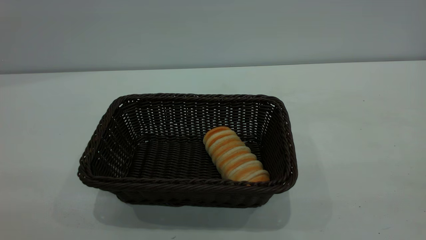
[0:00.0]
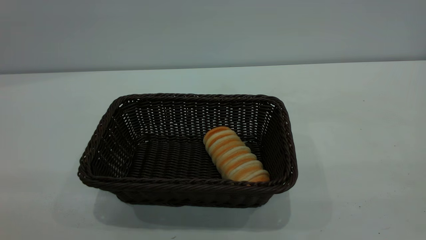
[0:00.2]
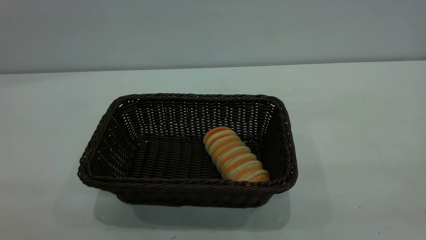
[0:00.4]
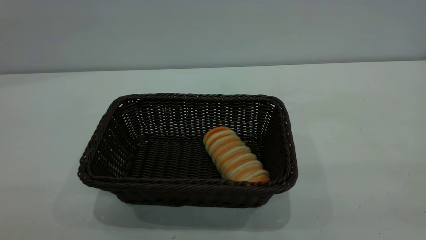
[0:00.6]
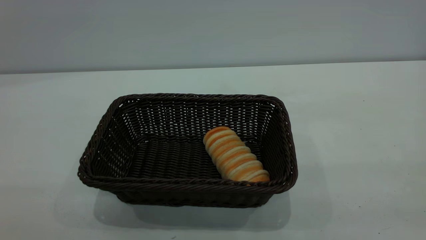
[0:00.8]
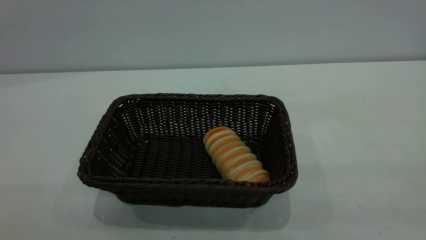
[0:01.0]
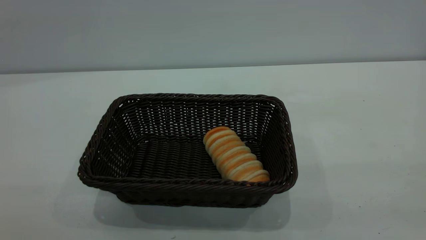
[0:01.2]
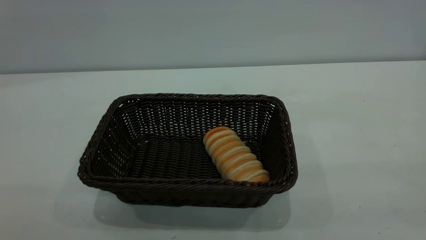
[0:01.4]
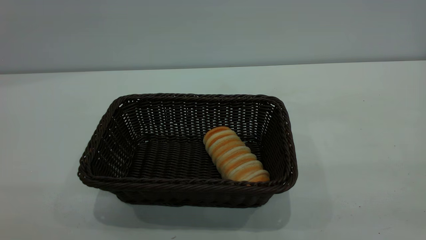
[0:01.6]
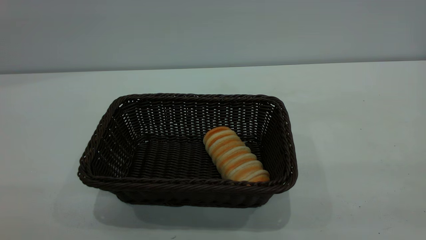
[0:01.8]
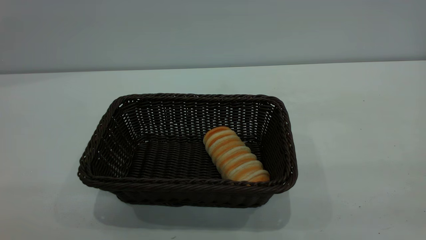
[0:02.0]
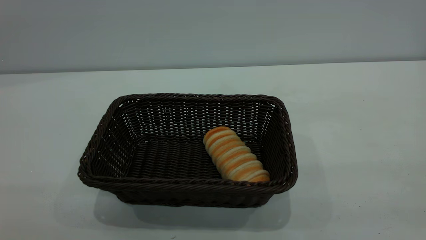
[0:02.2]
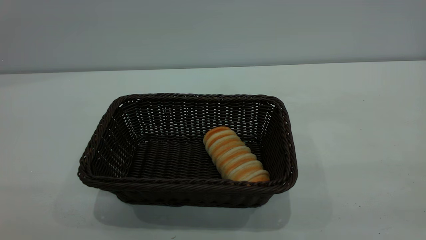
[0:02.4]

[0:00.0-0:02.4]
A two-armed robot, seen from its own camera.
Task of the whole recording: One hand grasps the black basket and places it in the middle of the table, while the other hand picks up the long bread and puts it into the black basket.
0:01.2 to 0:02.4: Both grippers stay put.

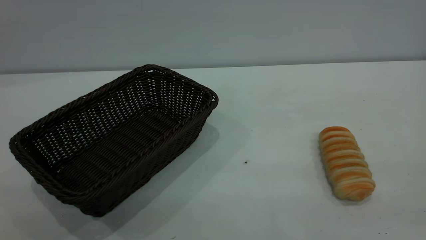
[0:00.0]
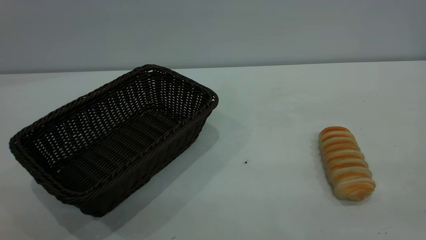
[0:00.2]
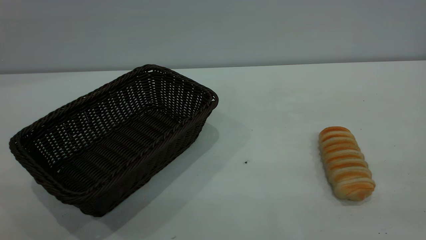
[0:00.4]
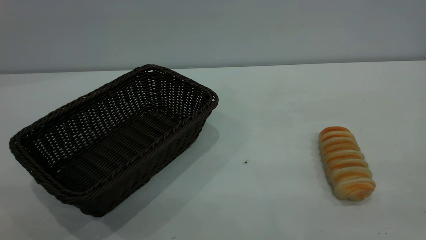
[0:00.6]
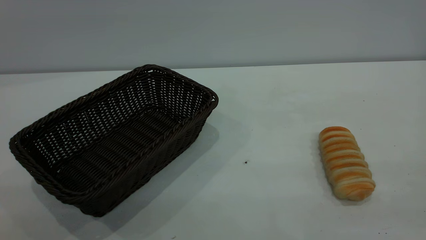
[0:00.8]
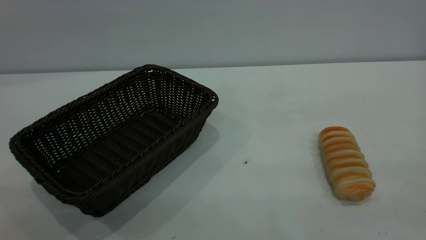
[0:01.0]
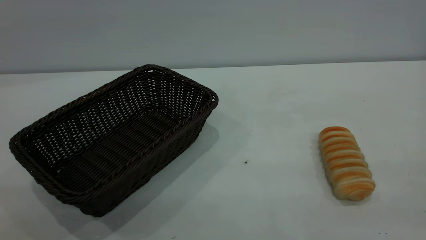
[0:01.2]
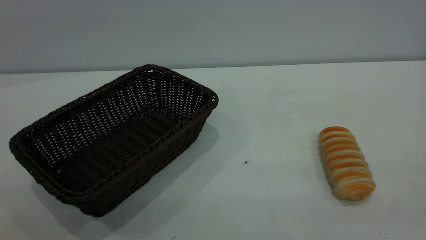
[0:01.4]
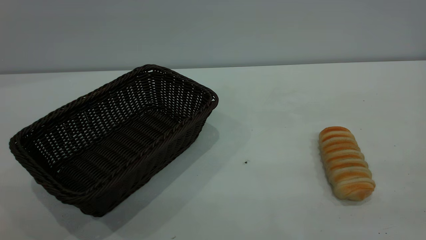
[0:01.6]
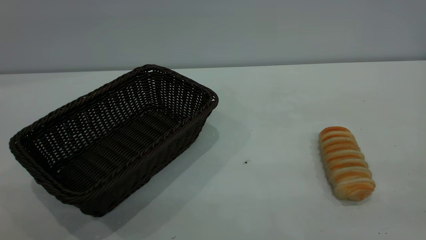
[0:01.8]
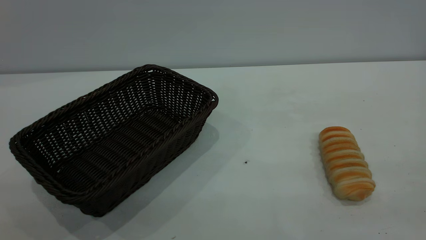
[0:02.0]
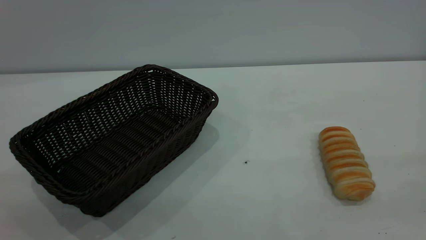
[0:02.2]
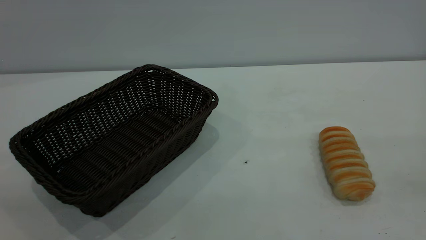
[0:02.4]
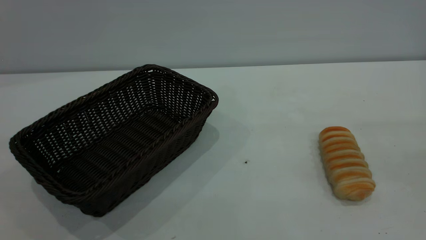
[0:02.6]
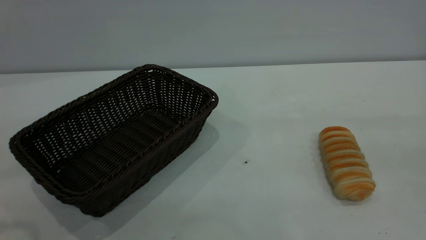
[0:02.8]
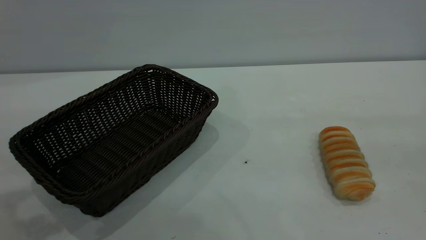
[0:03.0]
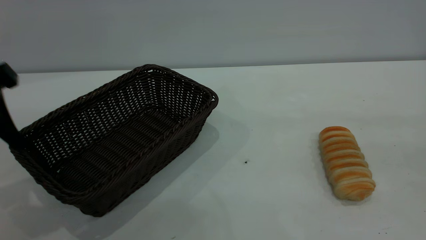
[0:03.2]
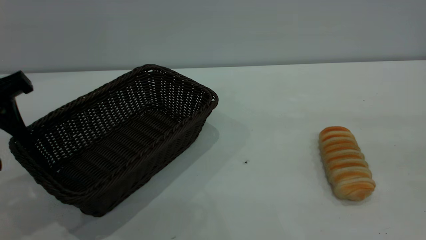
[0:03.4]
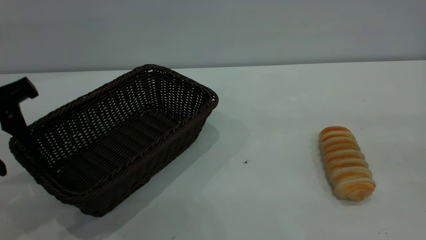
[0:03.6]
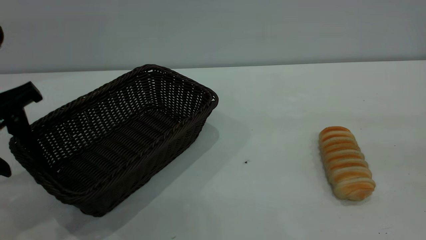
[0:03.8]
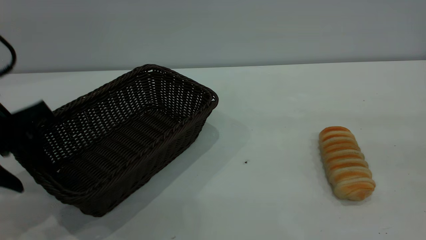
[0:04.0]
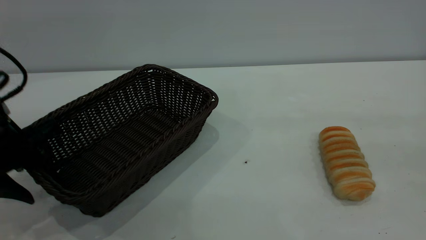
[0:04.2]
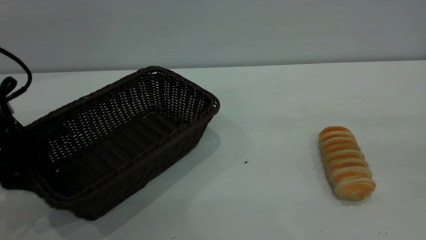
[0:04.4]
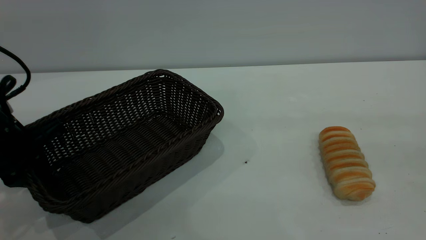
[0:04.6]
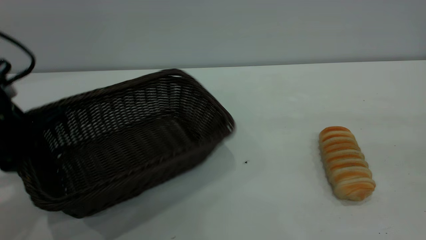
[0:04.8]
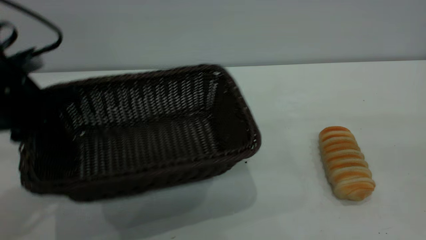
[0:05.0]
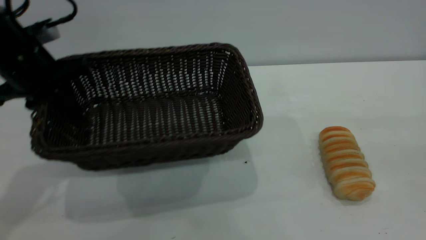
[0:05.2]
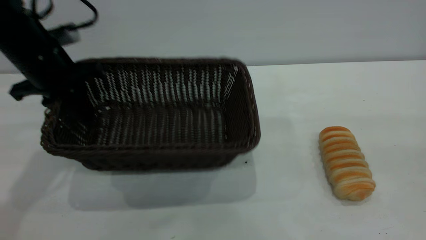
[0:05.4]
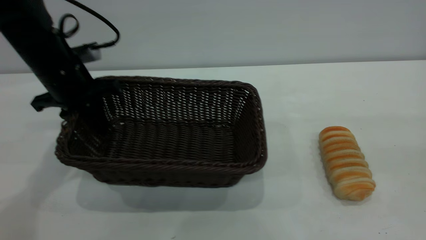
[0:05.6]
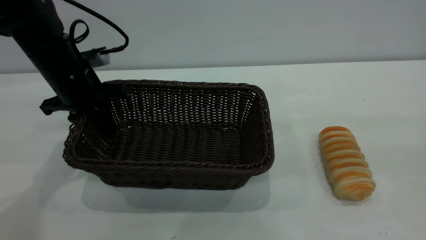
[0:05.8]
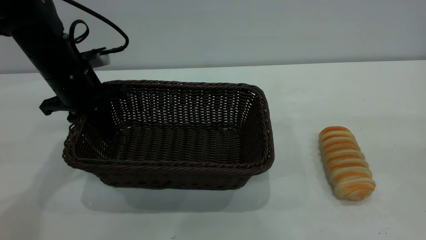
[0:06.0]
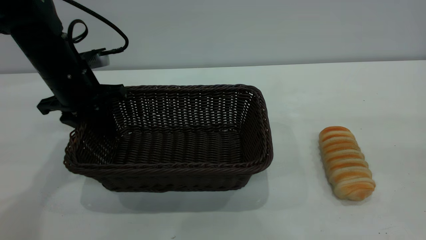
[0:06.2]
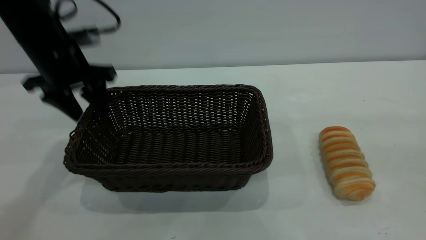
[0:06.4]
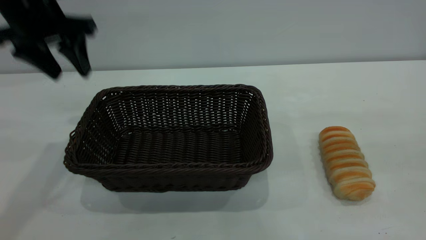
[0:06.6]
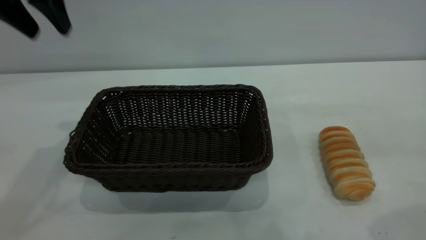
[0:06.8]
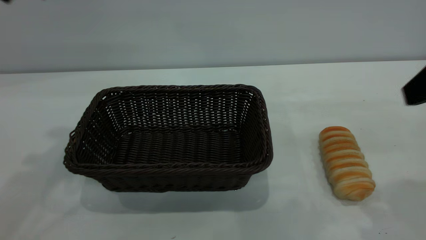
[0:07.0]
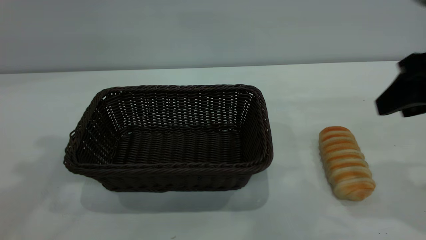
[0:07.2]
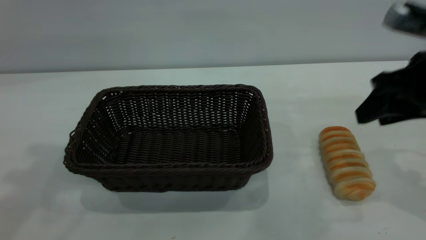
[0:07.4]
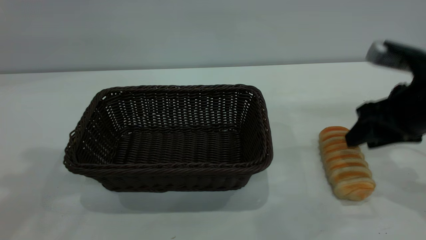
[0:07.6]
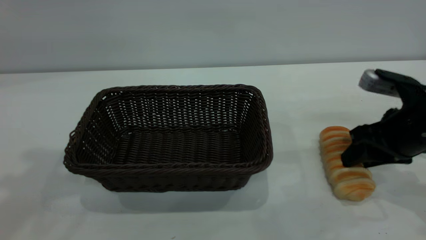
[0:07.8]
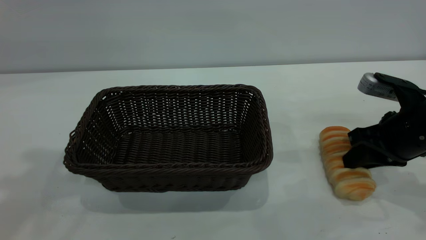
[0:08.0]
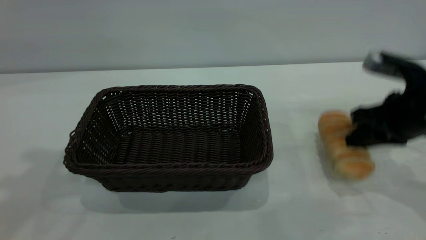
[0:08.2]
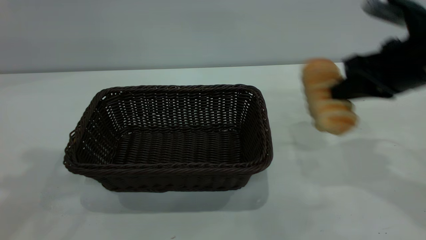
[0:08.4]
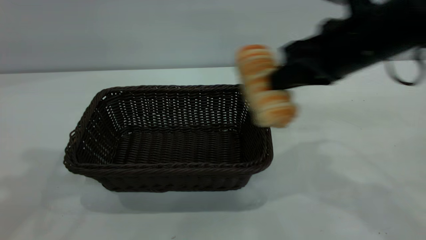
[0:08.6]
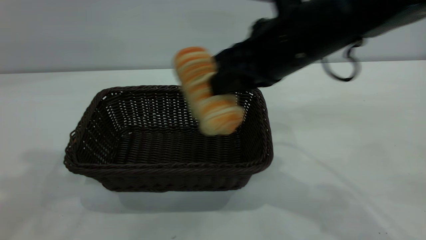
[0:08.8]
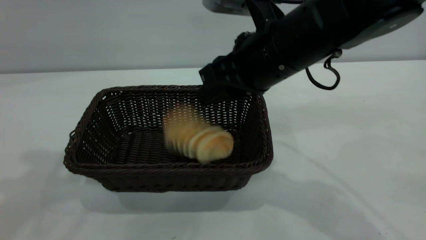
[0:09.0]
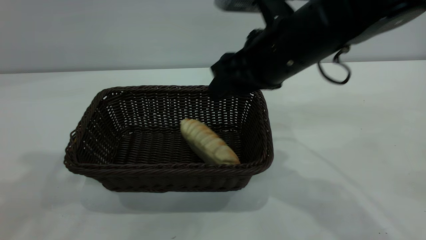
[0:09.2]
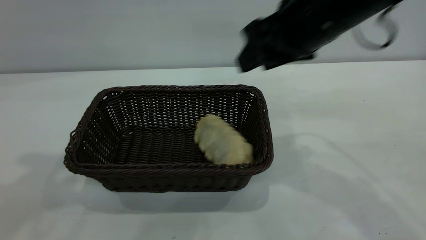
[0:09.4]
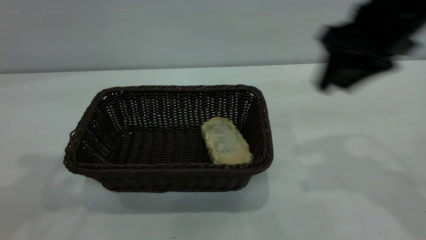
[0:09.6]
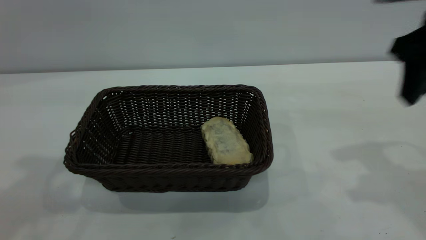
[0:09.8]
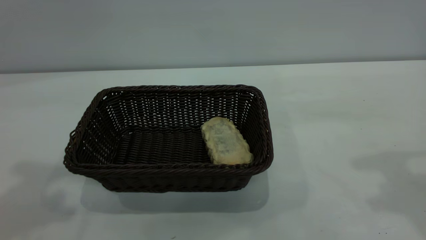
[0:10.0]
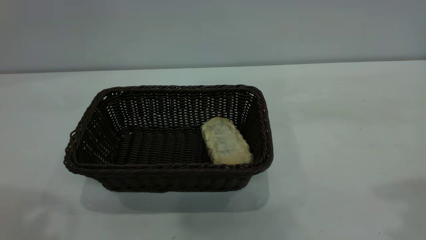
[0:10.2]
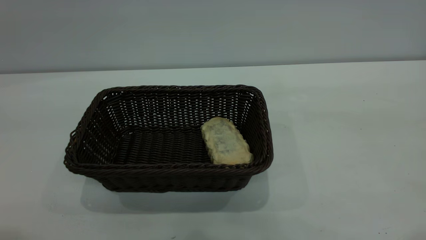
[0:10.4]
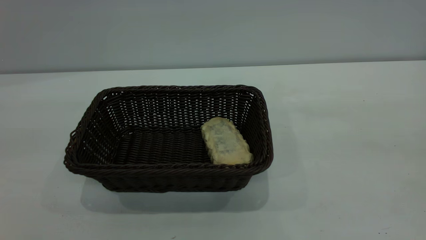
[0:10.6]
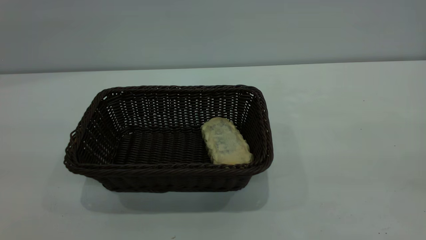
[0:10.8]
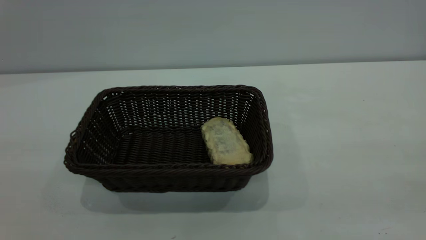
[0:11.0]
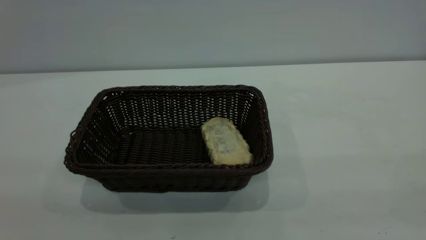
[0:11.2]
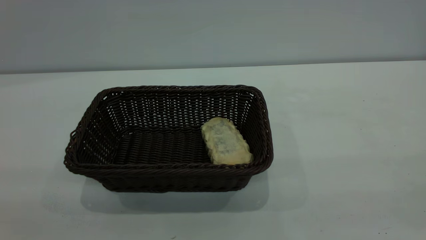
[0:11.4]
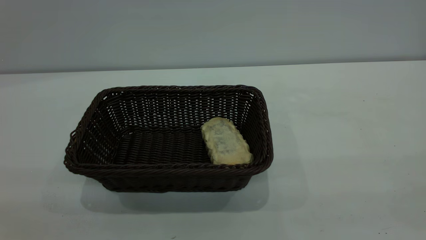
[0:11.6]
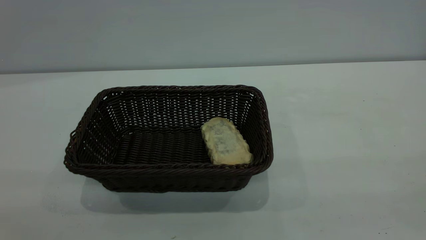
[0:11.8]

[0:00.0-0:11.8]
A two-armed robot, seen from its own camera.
Task of the whole recording: One hand grasps the black basket and places it in the middle of the table, while the other hand picks up the long bread and puts it into the black basket.
Step, 0:00.0 to 0:06.6: Move the basket to the center of view.
Step, 0:08.4 to 0:09.4: place the bread into the basket.
0:00.0 to 0:01.4: The two grippers keep their place.
0:03.0 to 0:04.4: The left gripper travels downward and forward by approximately 15 cm, and closes.
0:04.4 to 0:06.0: The left gripper travels forward and to the right by roughly 15 cm.
0:06.0 to 0:07.4: The left gripper moves upward, about 30 cm, and opens; the right gripper travels forward and downward by approximately 25 cm.
0:07.4 to 0:08.8: The right gripper goes approximately 20 cm to the left, and closes up.
0:08.8 to 0:10.4: The left gripper goes roughly 15 cm backward. The right gripper is displaced upward, to the right and backward by about 35 cm, and opens up.

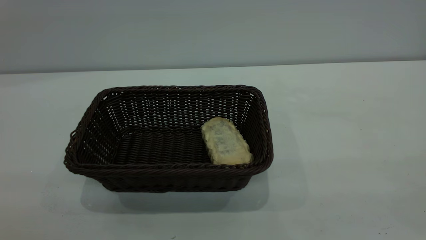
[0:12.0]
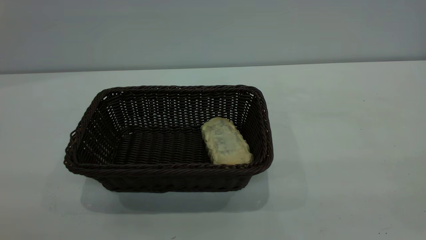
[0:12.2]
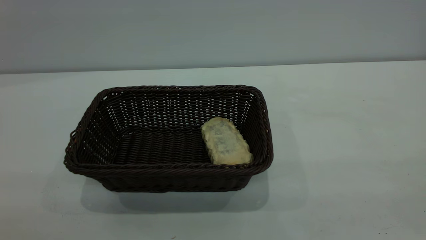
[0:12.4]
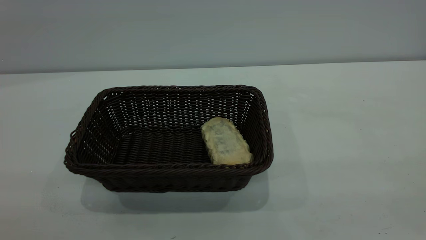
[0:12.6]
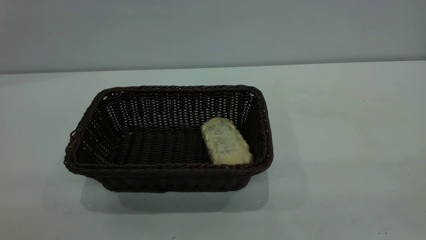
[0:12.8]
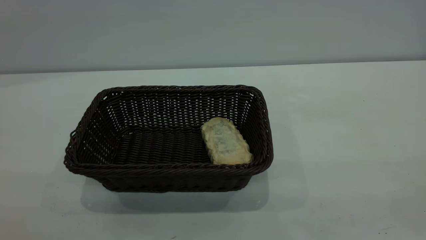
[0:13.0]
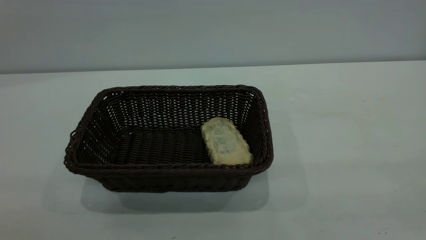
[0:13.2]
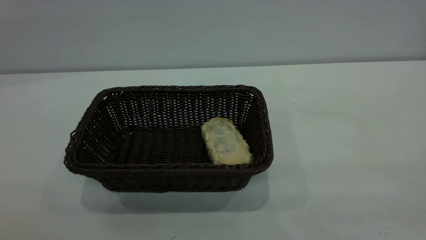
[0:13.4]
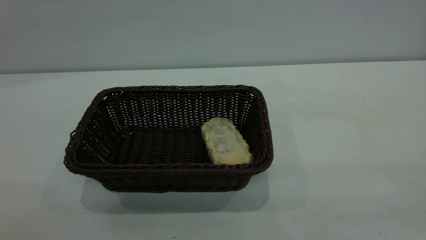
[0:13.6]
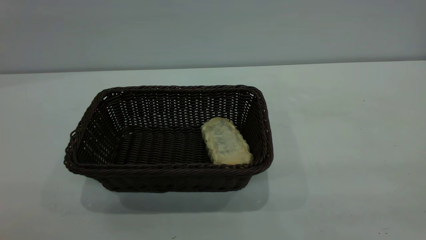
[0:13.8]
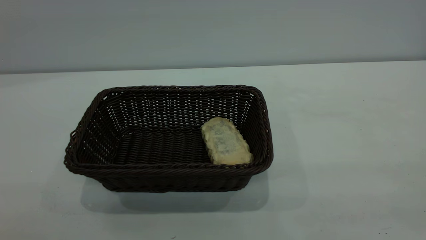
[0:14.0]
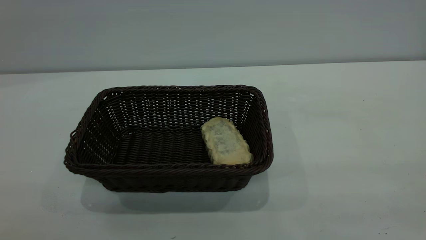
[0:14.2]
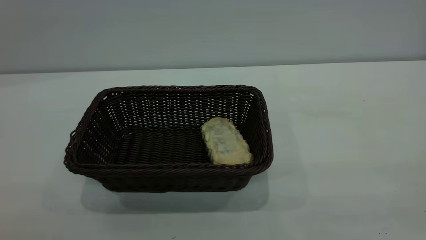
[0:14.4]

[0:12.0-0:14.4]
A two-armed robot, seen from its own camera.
Task of the whole recording: One hand grasps the black basket and places it in the middle of the table, while the other hand picks up the long bread and puts it into the black basket.
0:13.2 to 0:14.4: The two grippers keep their place.
